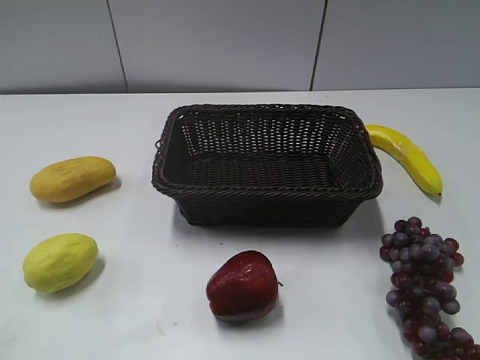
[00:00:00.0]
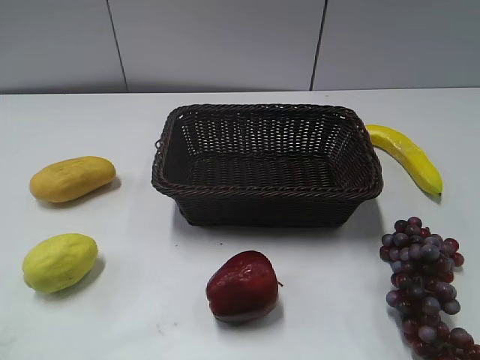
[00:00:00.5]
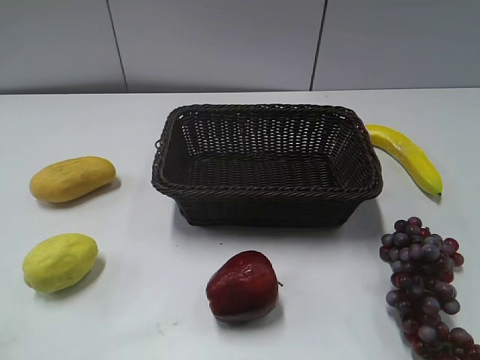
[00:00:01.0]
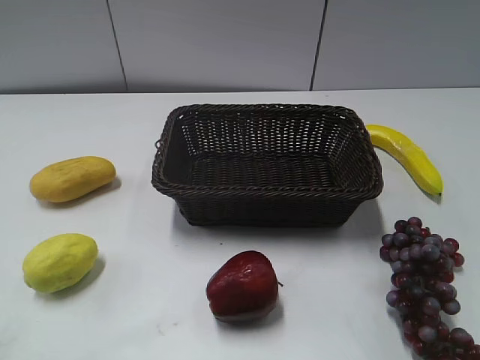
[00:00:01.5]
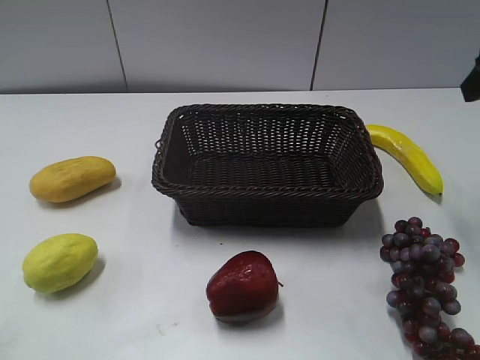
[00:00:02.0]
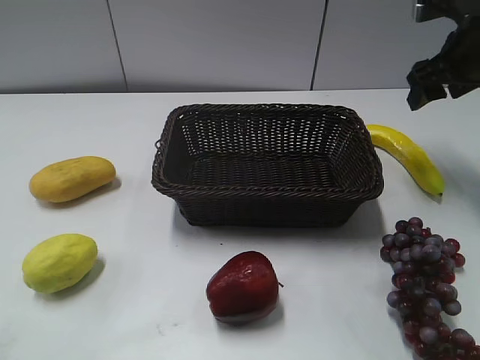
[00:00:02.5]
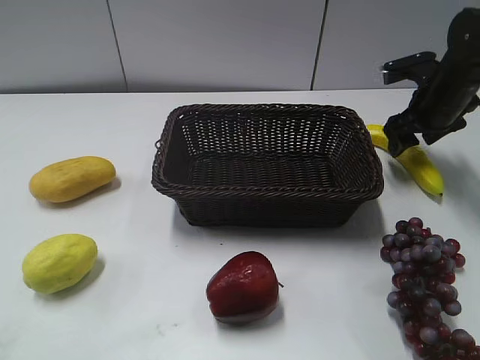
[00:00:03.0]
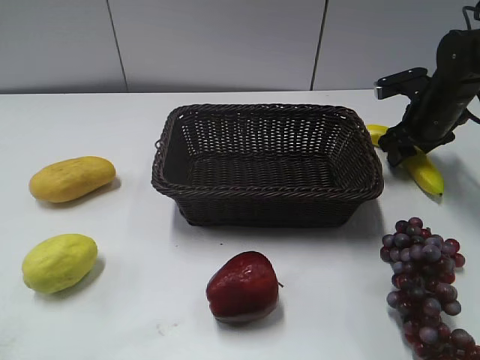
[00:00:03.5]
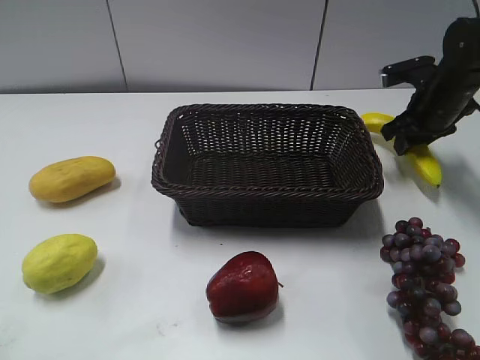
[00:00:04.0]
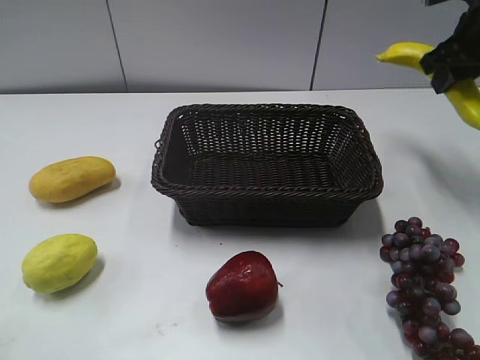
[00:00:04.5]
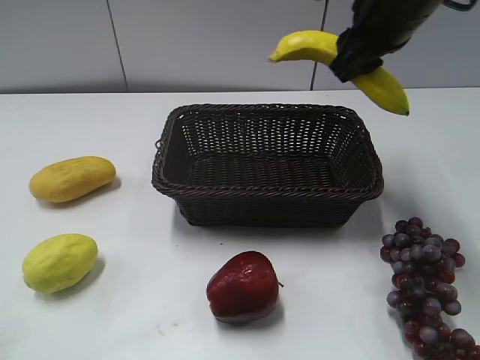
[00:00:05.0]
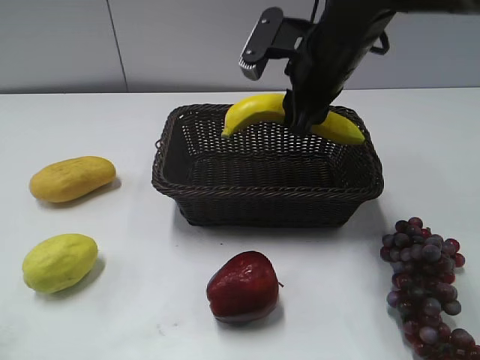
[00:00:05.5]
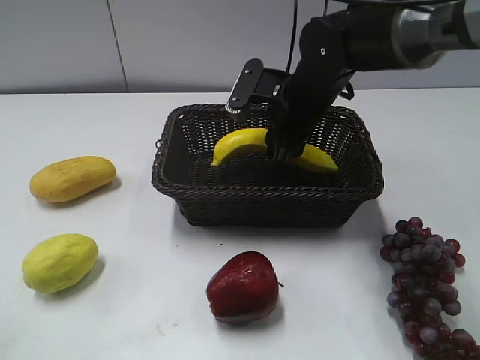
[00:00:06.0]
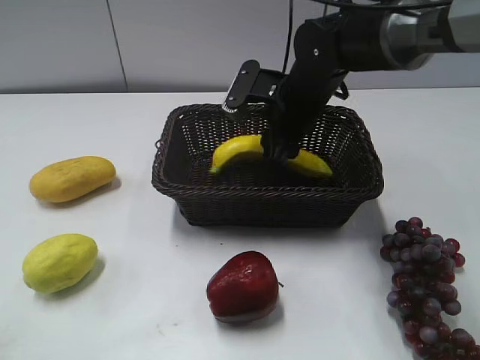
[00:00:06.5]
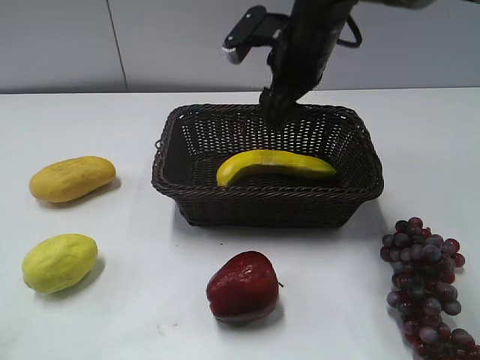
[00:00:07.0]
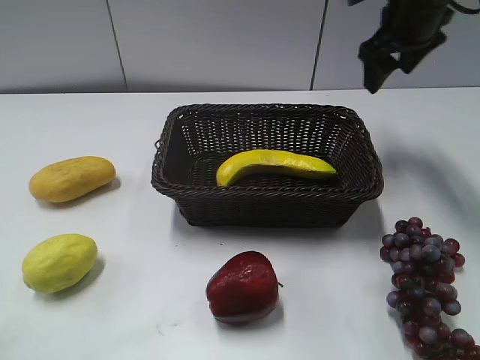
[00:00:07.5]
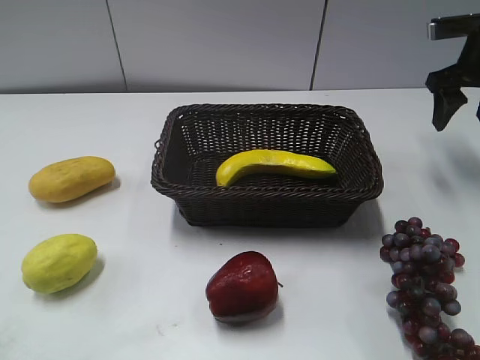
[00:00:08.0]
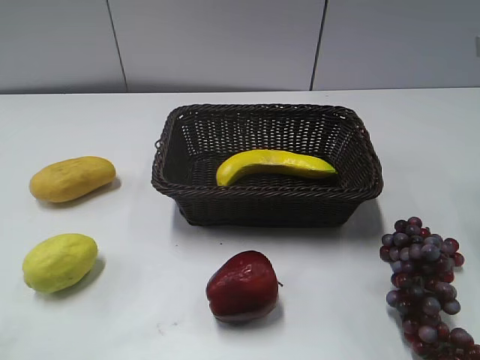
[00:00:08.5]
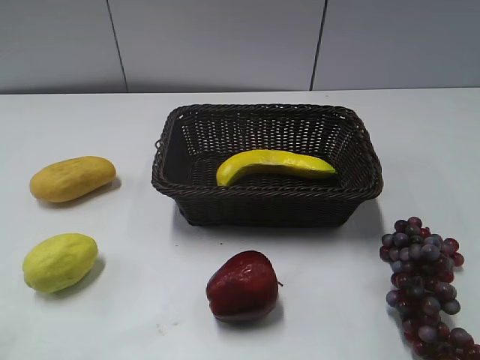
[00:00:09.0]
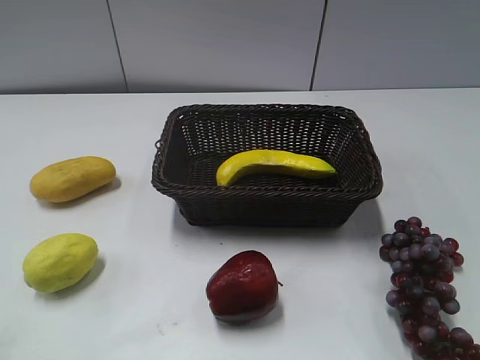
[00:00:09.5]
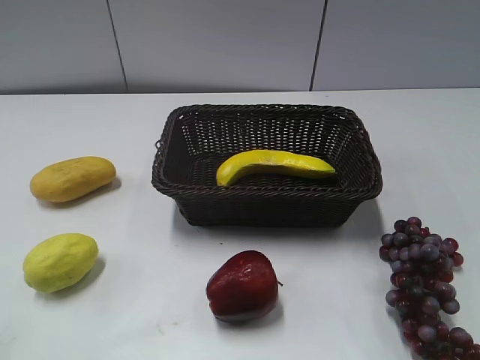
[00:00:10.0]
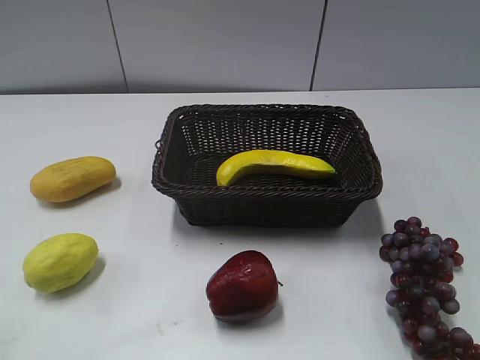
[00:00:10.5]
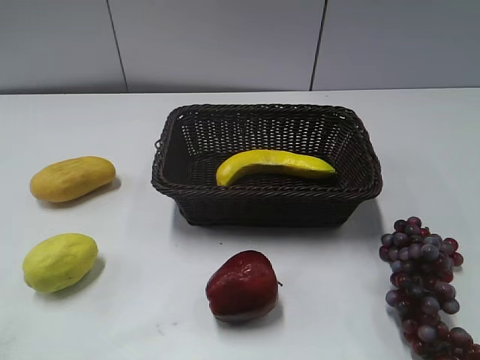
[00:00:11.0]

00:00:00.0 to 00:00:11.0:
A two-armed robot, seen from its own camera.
Step, 00:00:02.0 to 00:00:03.5: Grasp the banana with right gripper.
Step, 00:00:04.5 to 00:00:07.0: Place the banana in the basket with right gripper.
00:00:02.0 to 00:00:03.5: The right gripper heads downward and forward, covering about 25 cm, and closes up.
00:00:03.5 to 00:00:05.5: The right gripper moves to the left, upward and backward, some 25 cm, and closes.
00:00:05.5 to 00:00:07.5: The right gripper moves to the right and forward, about 15 cm, and opens up.
00:00:07.5 to 00:00:09.0: The right gripper moves backward, roughly 25 cm.
